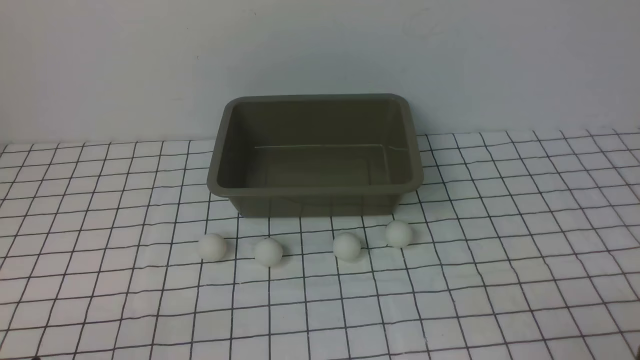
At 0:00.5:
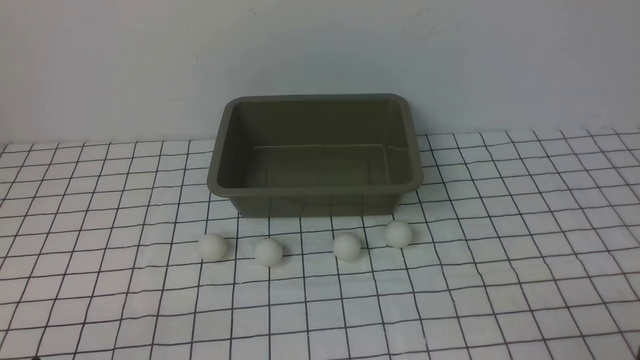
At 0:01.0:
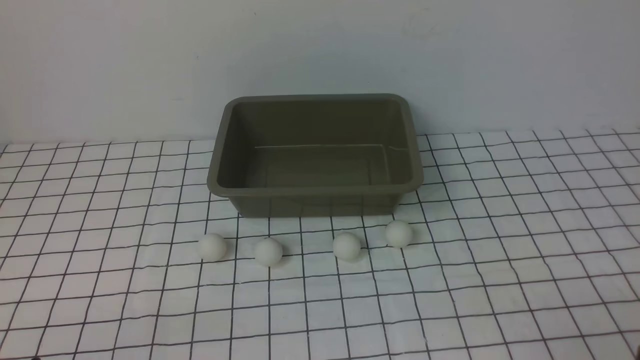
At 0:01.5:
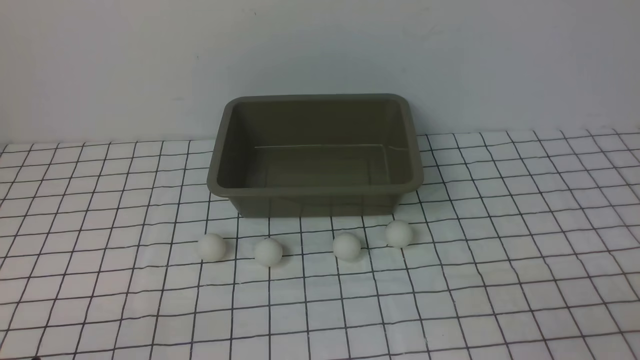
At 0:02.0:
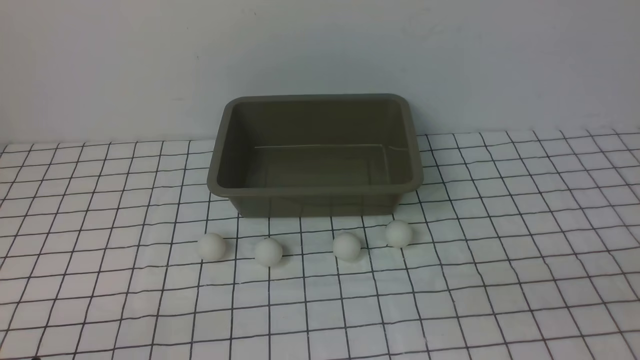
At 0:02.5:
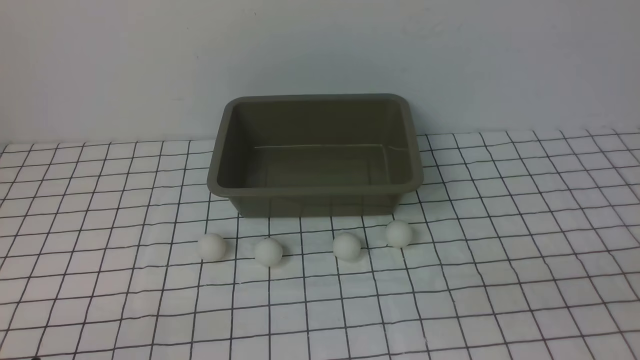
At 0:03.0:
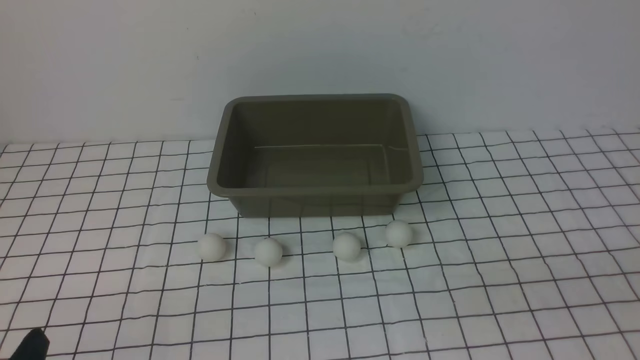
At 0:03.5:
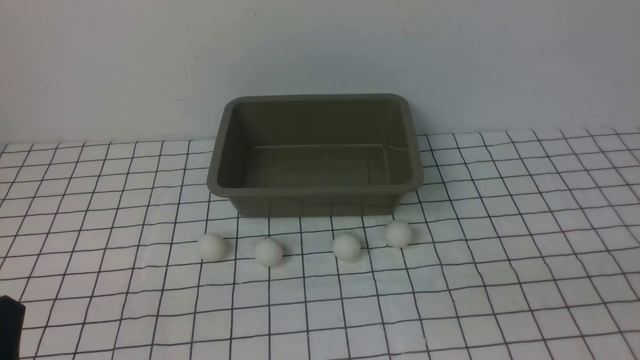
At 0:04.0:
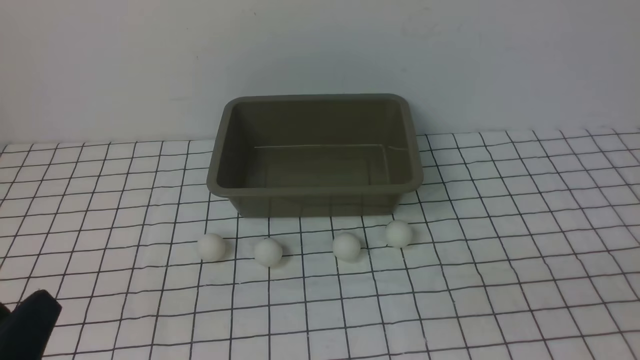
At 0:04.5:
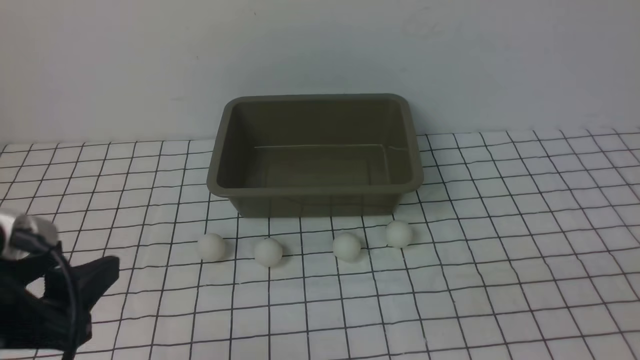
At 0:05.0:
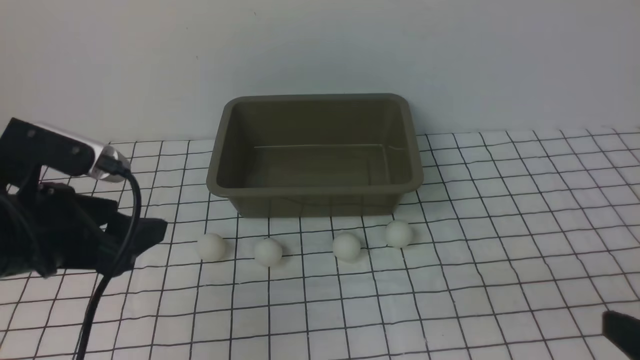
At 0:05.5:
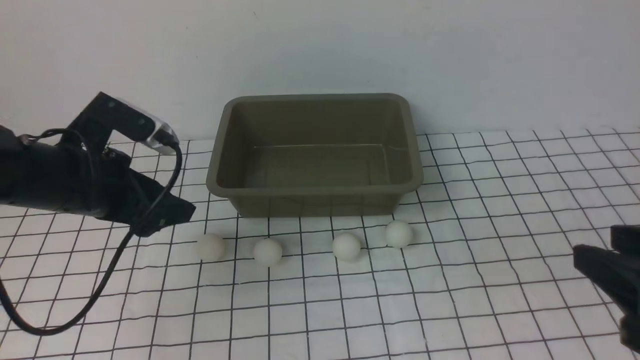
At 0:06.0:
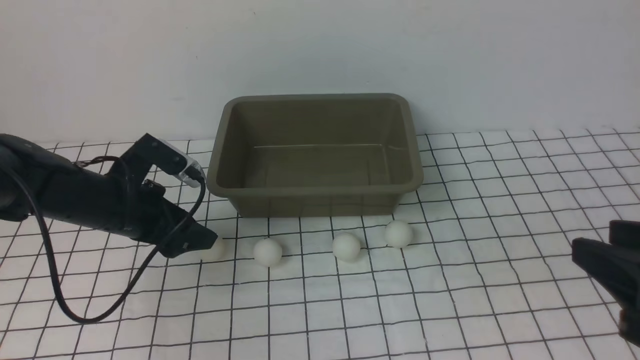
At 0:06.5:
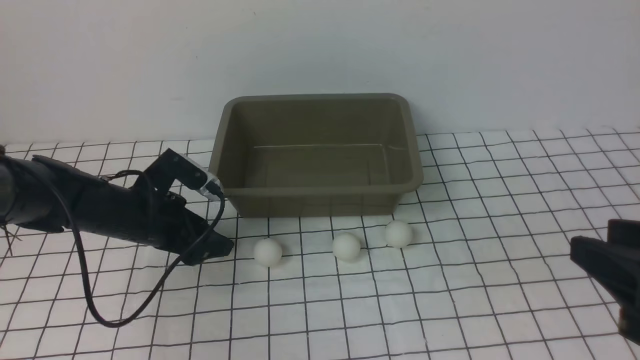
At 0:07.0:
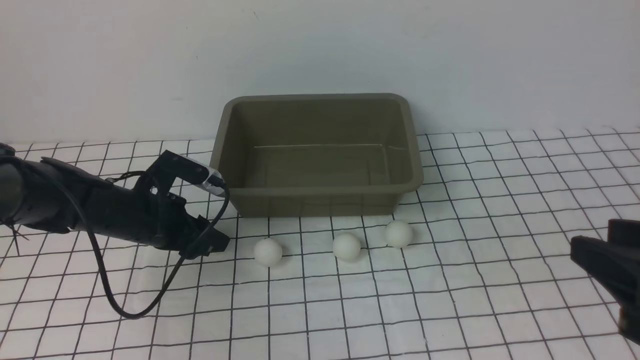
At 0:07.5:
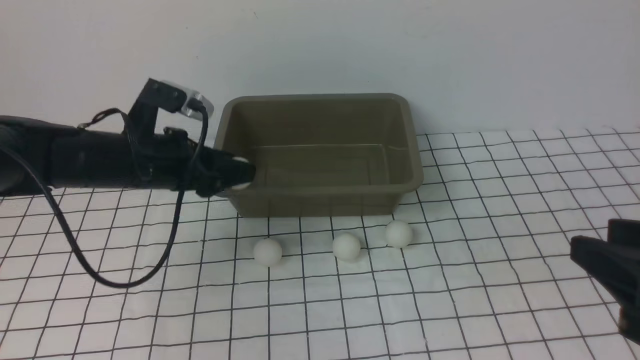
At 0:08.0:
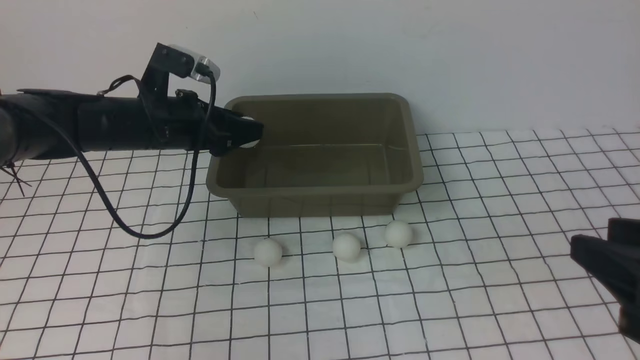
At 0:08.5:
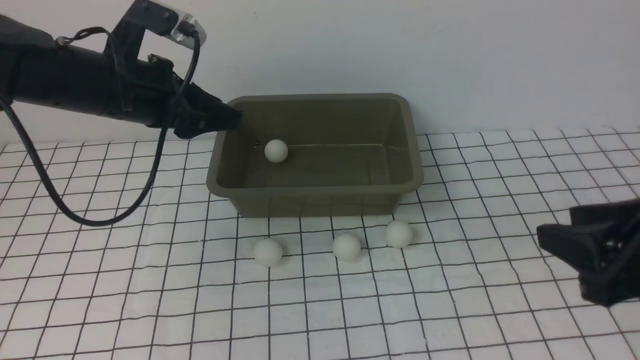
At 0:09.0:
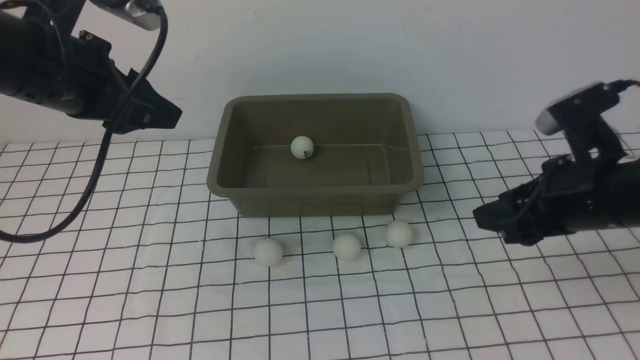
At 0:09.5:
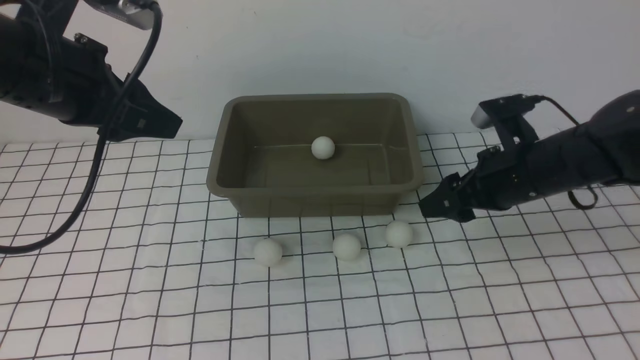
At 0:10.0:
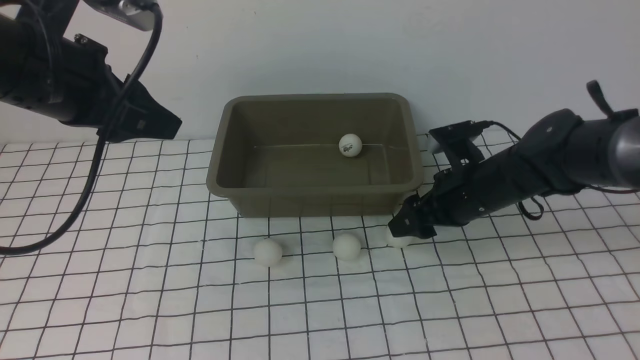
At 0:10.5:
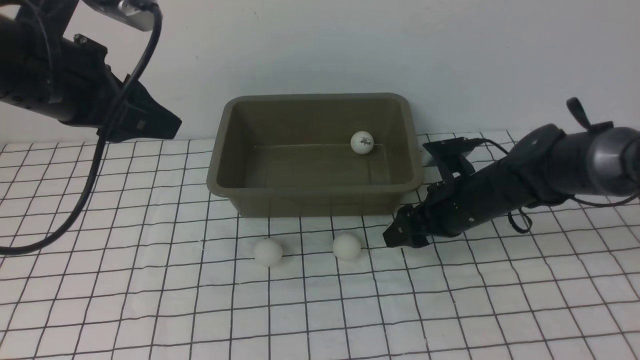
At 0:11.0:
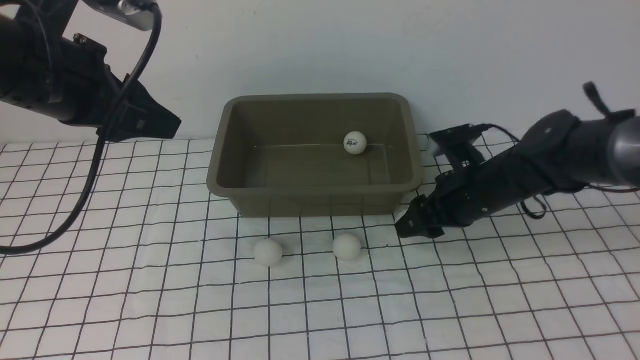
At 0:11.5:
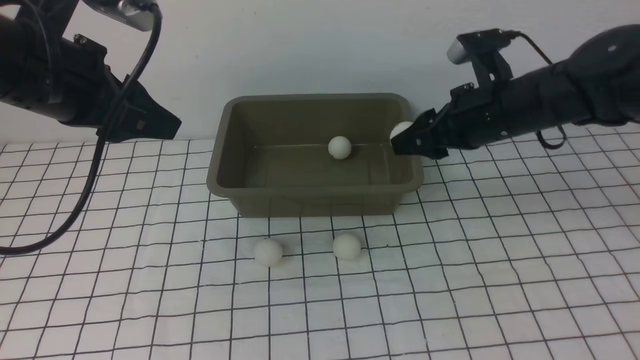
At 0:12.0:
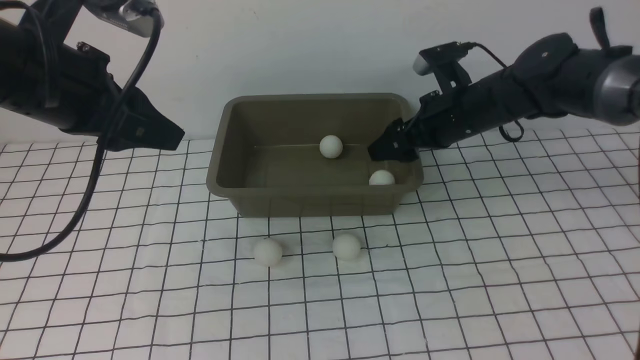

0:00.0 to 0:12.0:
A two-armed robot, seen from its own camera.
Step, 0:00.0 to 0:07.0: use the left arm to clamp the table tennis ball closest to it.
Step, 0:07.5 to 0:08.0: use the left arm to put the table tennis ball into the box.
Step, 0:08.5 to 0:11.0: use the right arm to clamp the table tennis ball closest to it.
0:02.0 to 0:04.0: The left gripper heads upward, covering about 10 cm.
0:04.0 to 0:06.0: The right gripper travels forward by about 10 cm; the left gripper moves forward, about 30 cm.
0:06.0 to 0:08.0: The left gripper goes some 10 cm upward and forward, and closes its fingers.
0:08.0 to 0:10.0: The right gripper travels forward and downward by about 30 cm, and opens; the left gripper travels upward and backward by about 15 cm.
0:10.0 to 0:12.0: The right gripper heads upward and forward, covering about 10 cm, and closes, then opens again.

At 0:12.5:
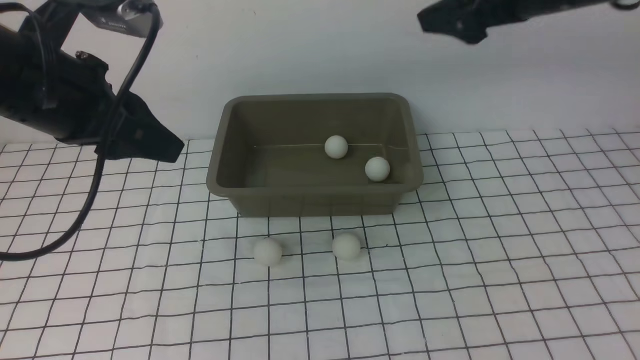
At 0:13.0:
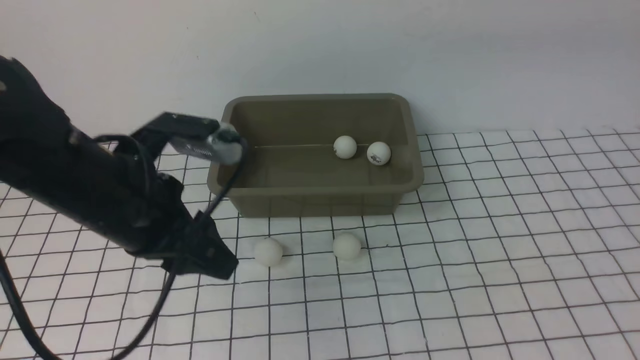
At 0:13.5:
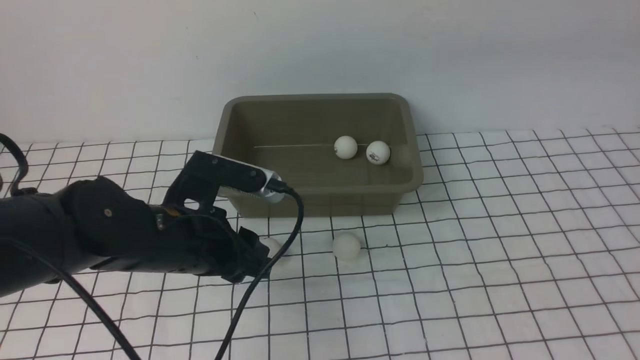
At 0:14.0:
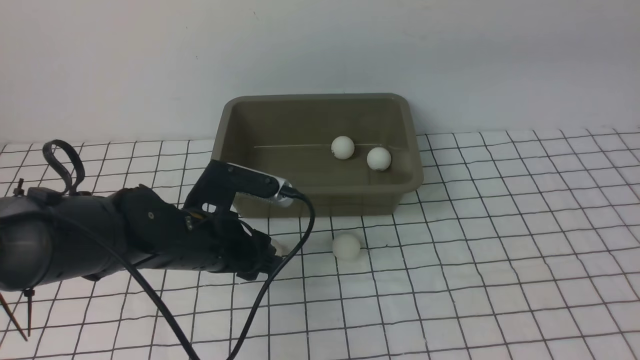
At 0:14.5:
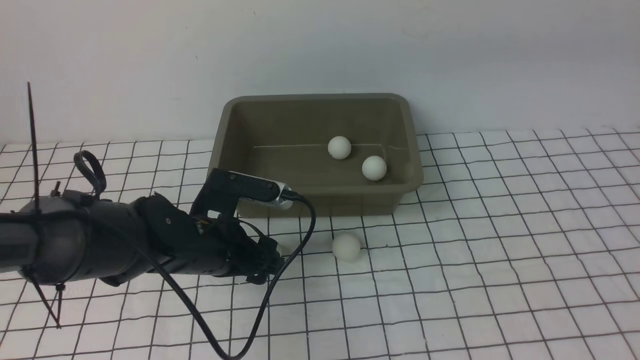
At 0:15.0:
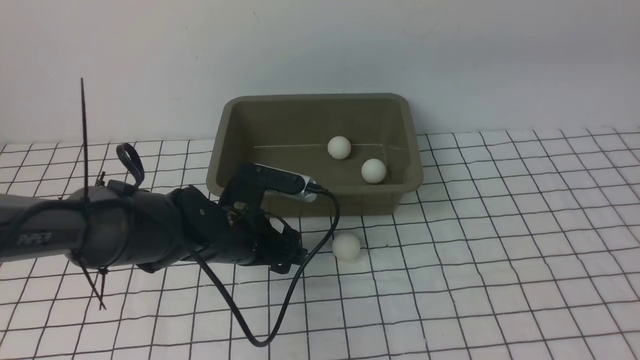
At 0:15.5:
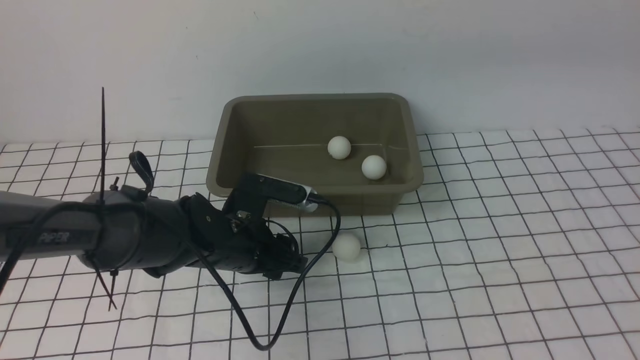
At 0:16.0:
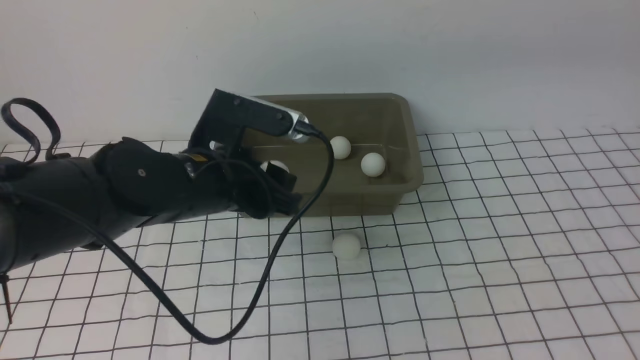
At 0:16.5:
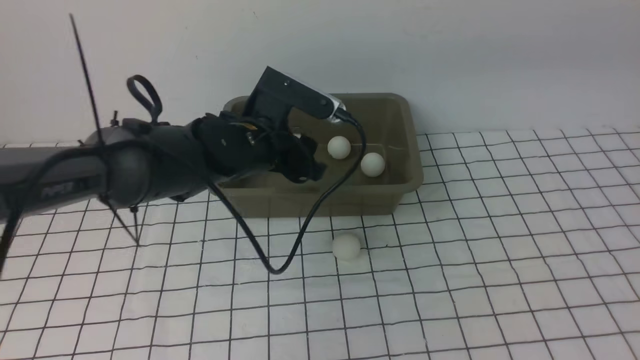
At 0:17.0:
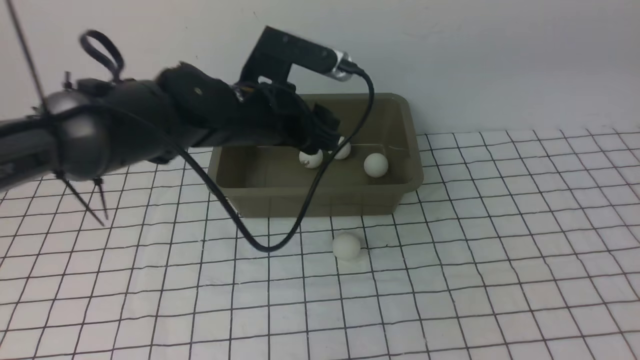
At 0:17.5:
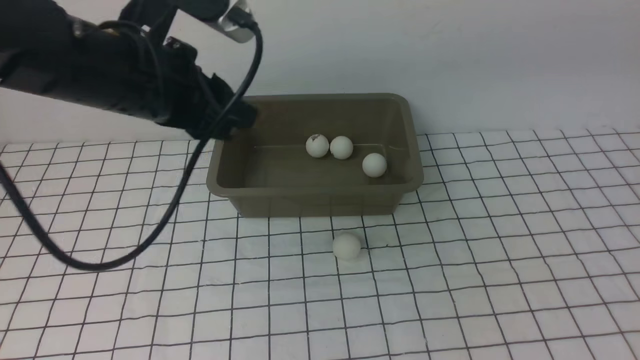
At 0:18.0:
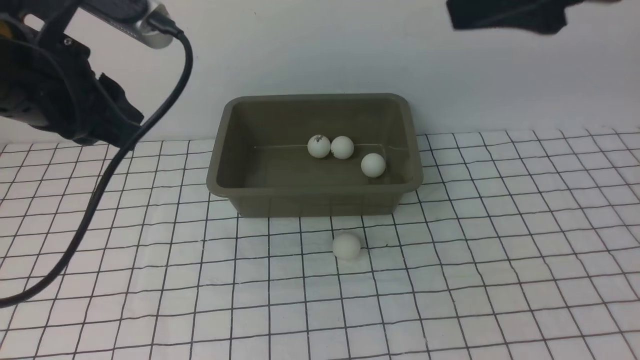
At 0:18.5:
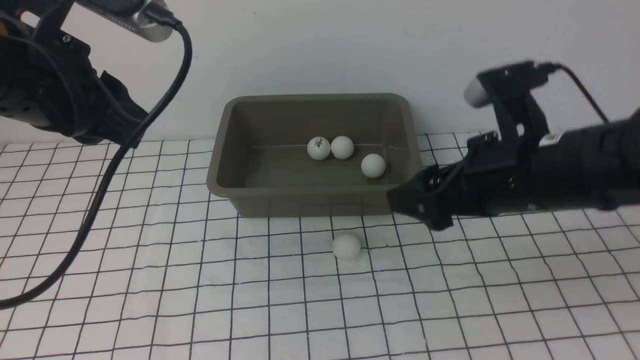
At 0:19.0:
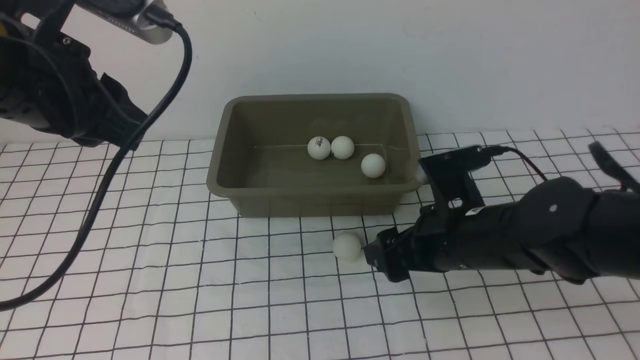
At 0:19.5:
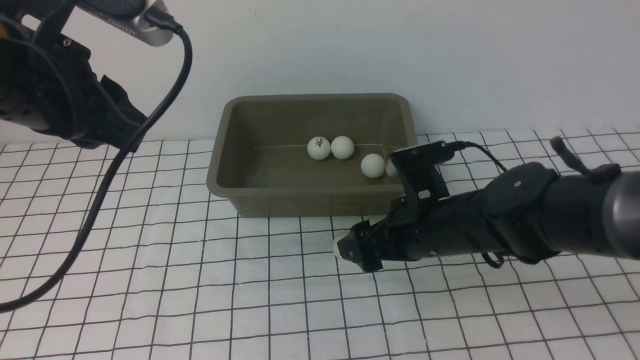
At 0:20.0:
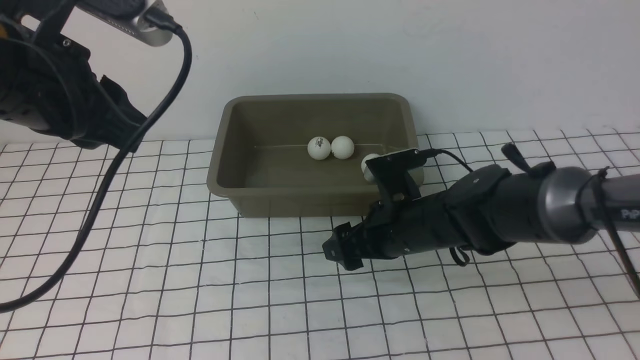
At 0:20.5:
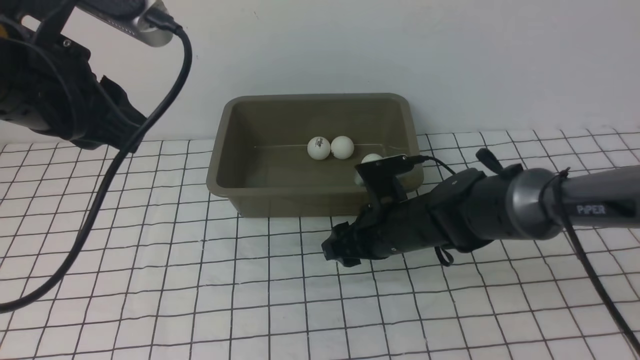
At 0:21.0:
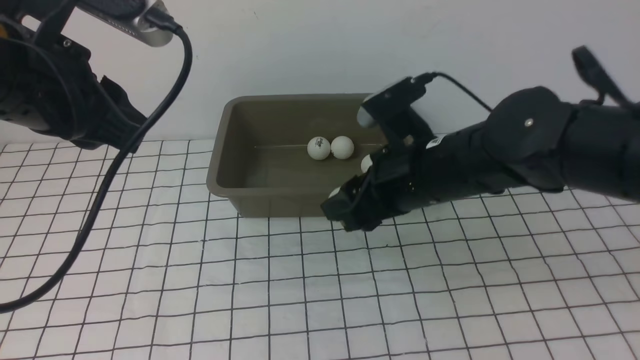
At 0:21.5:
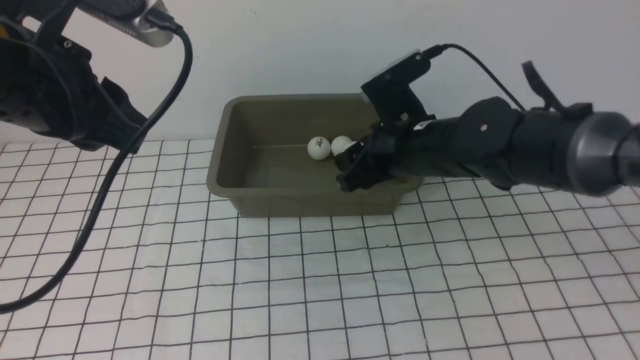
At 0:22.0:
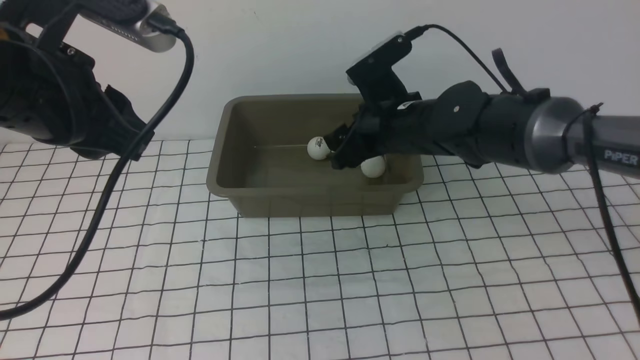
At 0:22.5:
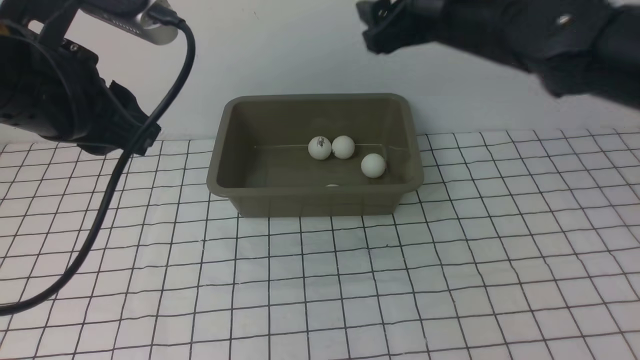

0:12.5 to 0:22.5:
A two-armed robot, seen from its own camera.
Step, 0:12.5 to 0:15.5: use the left arm to clamp the table tennis ball closest to it.
Step, 0:16.0 to 0:16.5: use the left arm to put the table tennis ball into the box.
Step, 0:17.0 to 0:20.5: use the right arm to clamp the table tennis ball closest to it.
Step, 0:21.0 to 0:22.0: use the right arm to put the table tennis ball into the box.
0:12.5 to 0:14.5: The right gripper is displaced backward and upward by approximately 10 cm; the left gripper is displaced downward and to the right by about 20 cm, and opens.
0:14.5 to 0:16.5: The left gripper heads forward and upward, covering roughly 10 cm, and closes, then reopens.
0:16.5 to 0:18.5: The left gripper is displaced upward, backward and to the left by some 25 cm, and closes its fingers, while the right gripper travels downward by approximately 25 cm.
0:18.5 to 0:20.5: The right gripper moves upward, roughly 5 cm, and closes its fingers.
0:20.5 to 0:22.5: The right gripper travels upward and to the right by approximately 30 cm, and opens its fingers.
